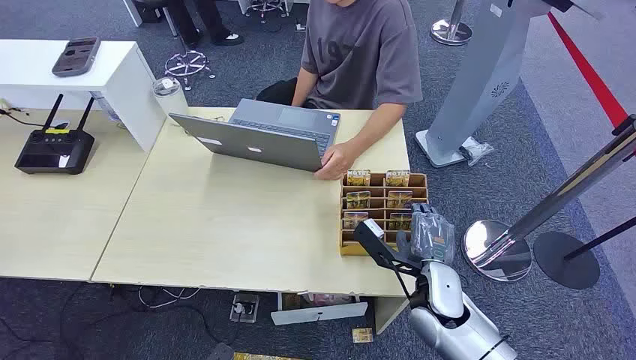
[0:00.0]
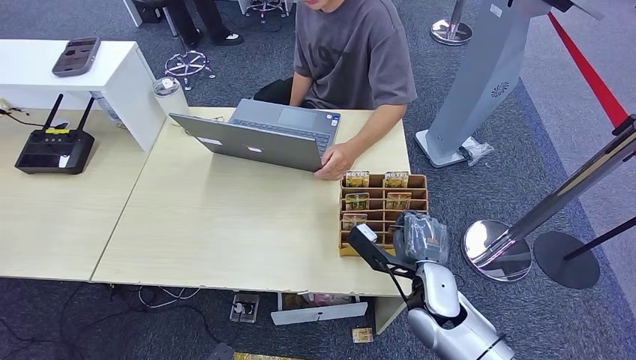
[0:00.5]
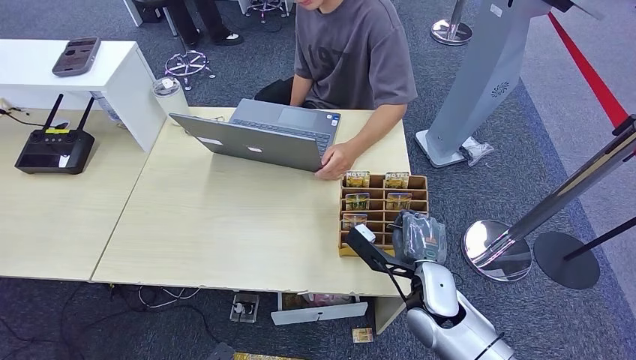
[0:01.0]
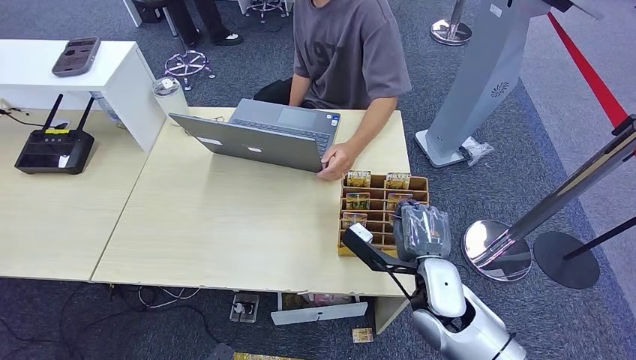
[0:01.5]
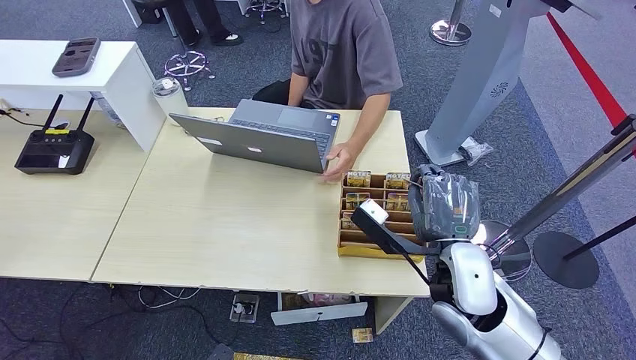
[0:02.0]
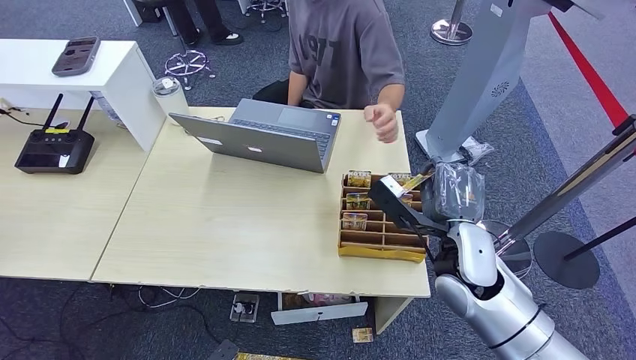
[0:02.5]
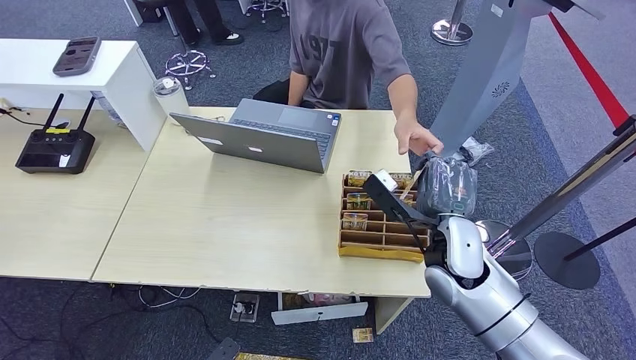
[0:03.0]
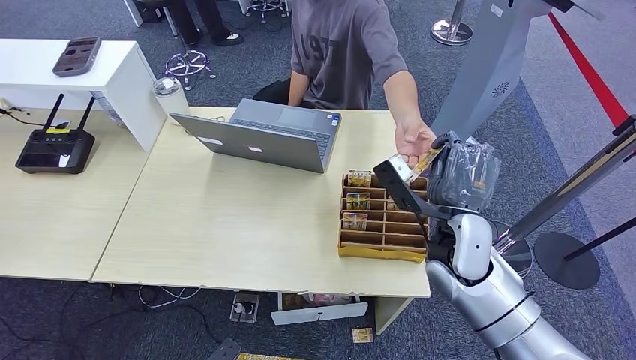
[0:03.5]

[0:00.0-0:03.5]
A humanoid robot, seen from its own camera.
Task of the whole recording: Pick up the card and hand it over to the target person.
Step, 0:00.0 to 0:01.0: Pick up the key card from the card box.
Step, 0:03.0 to 0:03.5: Hand the key card to the target.
